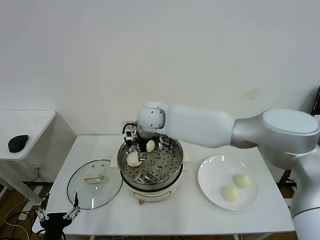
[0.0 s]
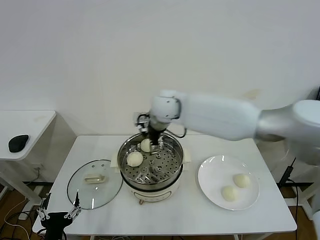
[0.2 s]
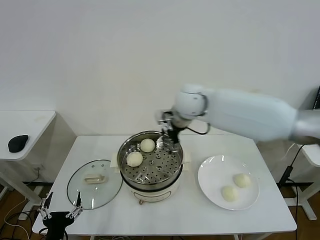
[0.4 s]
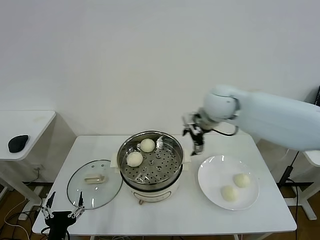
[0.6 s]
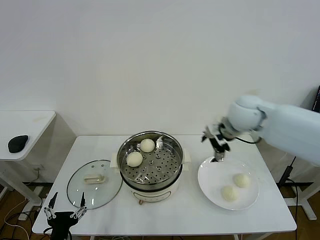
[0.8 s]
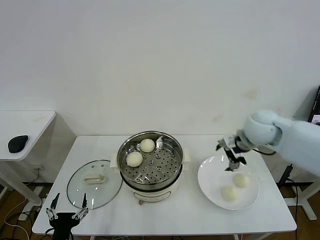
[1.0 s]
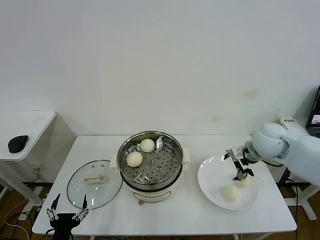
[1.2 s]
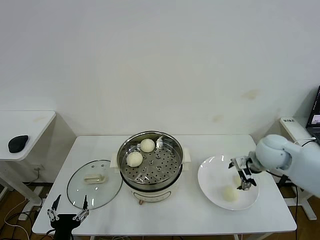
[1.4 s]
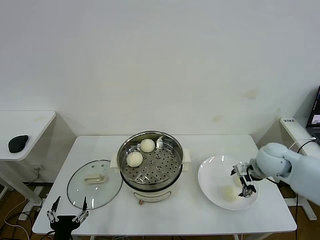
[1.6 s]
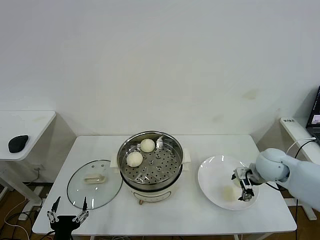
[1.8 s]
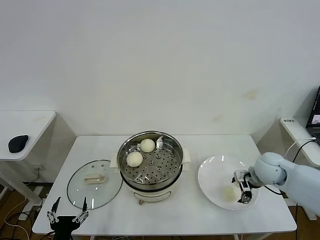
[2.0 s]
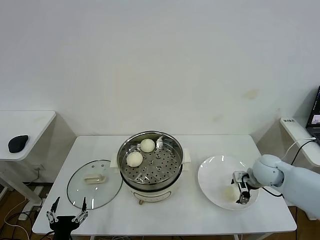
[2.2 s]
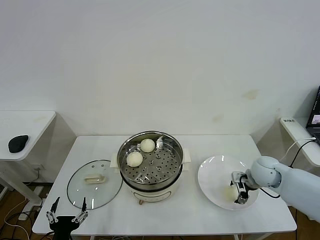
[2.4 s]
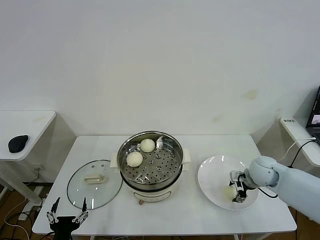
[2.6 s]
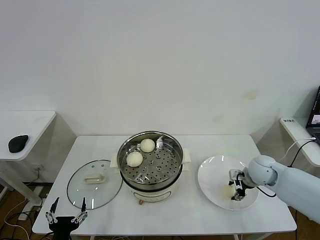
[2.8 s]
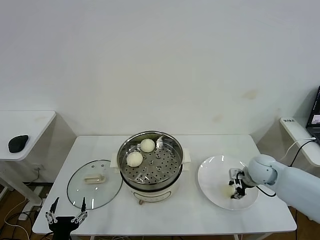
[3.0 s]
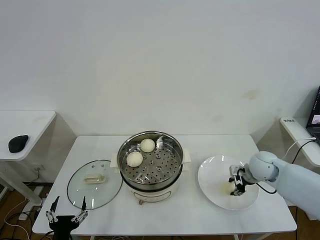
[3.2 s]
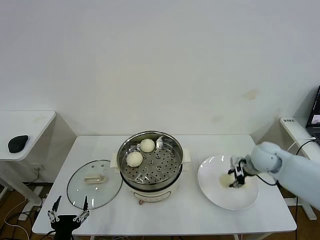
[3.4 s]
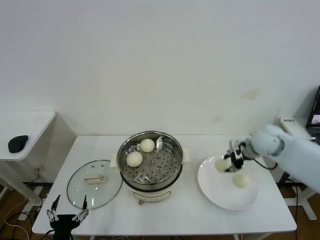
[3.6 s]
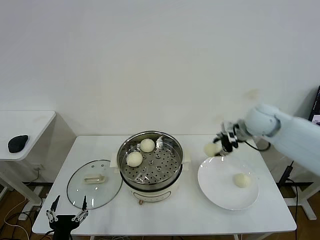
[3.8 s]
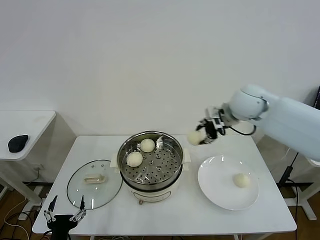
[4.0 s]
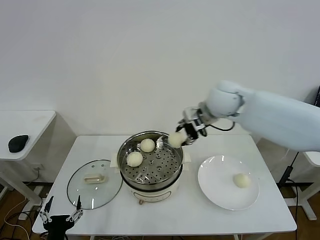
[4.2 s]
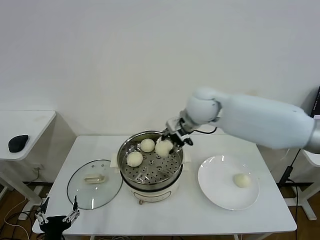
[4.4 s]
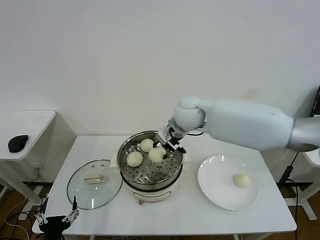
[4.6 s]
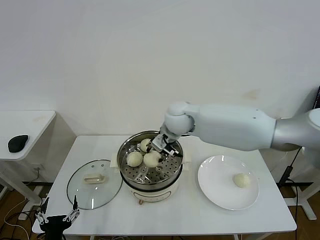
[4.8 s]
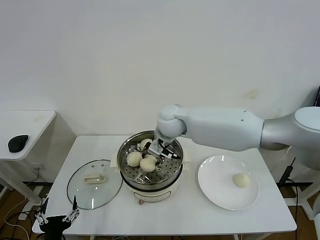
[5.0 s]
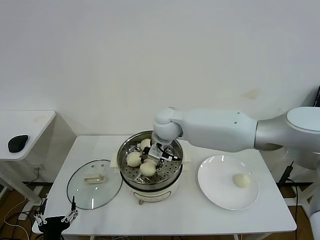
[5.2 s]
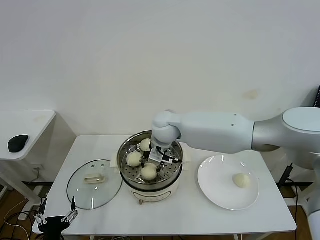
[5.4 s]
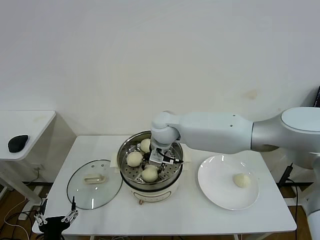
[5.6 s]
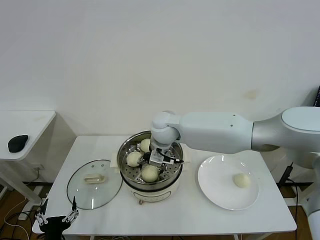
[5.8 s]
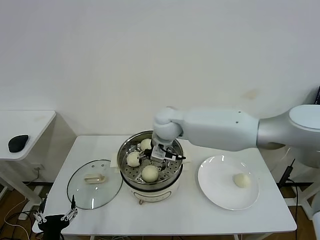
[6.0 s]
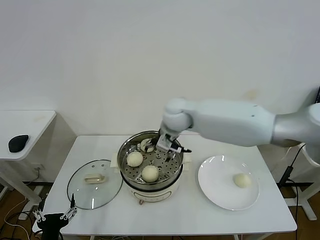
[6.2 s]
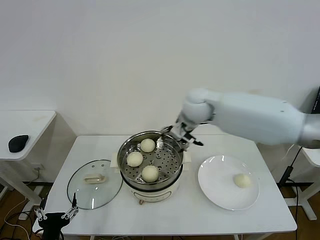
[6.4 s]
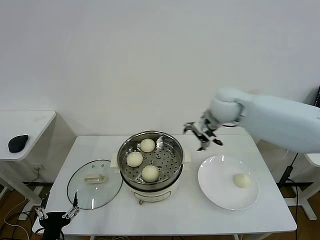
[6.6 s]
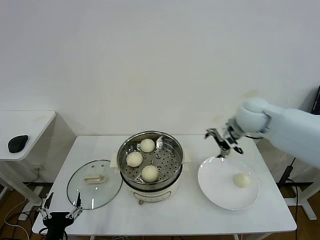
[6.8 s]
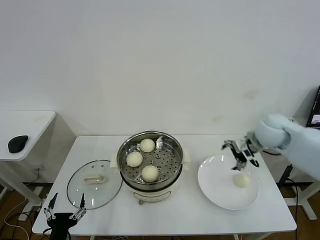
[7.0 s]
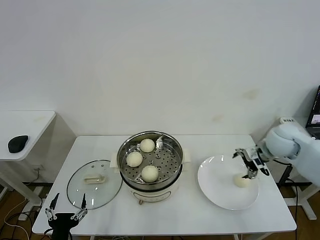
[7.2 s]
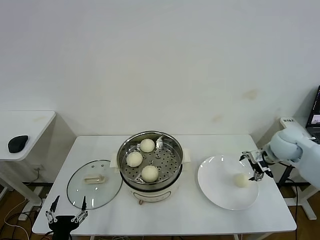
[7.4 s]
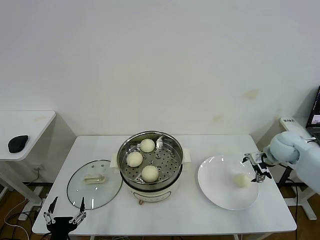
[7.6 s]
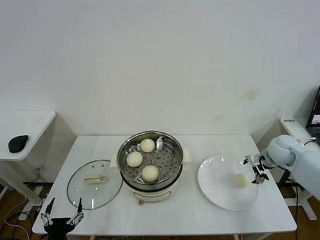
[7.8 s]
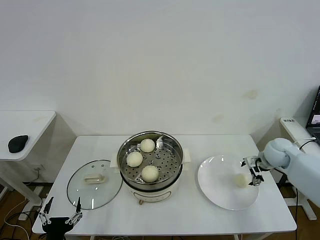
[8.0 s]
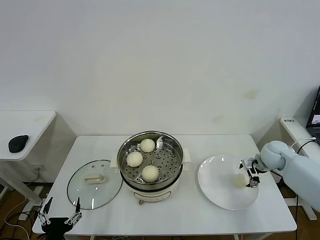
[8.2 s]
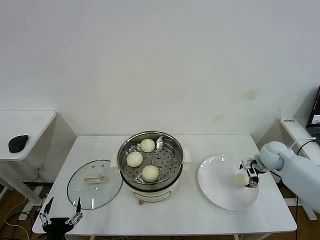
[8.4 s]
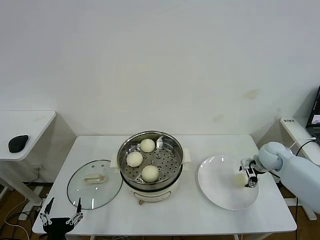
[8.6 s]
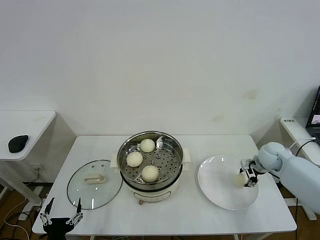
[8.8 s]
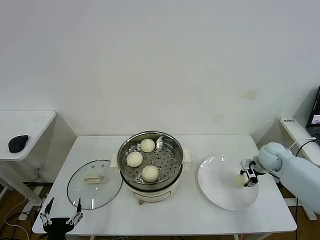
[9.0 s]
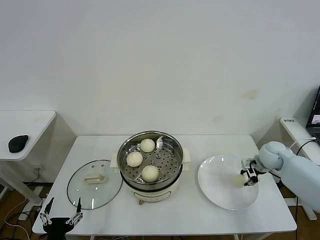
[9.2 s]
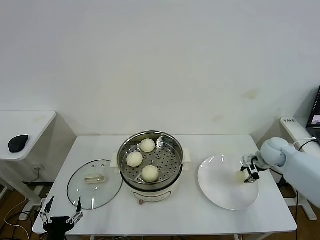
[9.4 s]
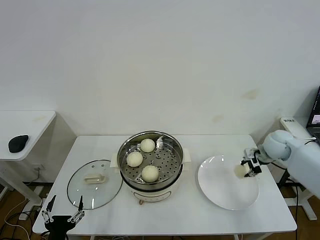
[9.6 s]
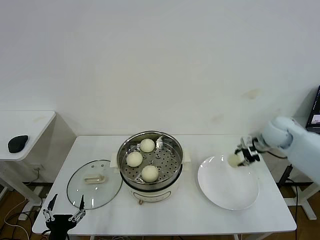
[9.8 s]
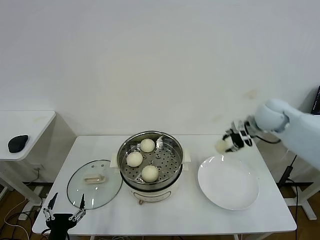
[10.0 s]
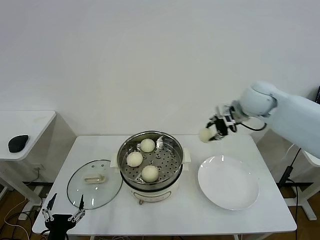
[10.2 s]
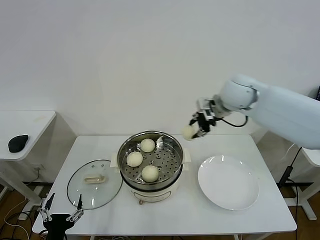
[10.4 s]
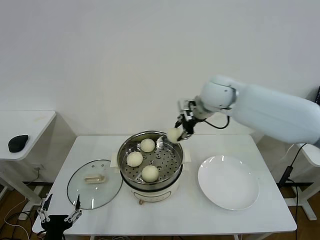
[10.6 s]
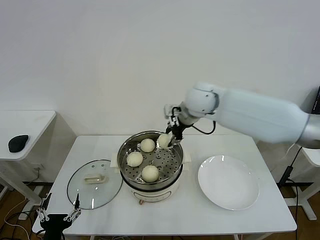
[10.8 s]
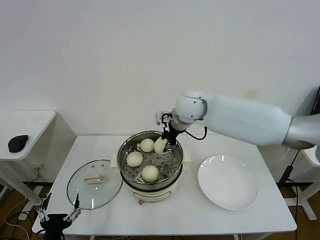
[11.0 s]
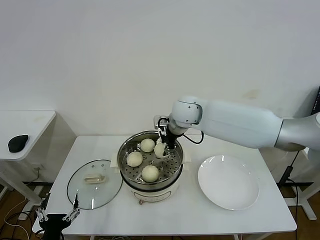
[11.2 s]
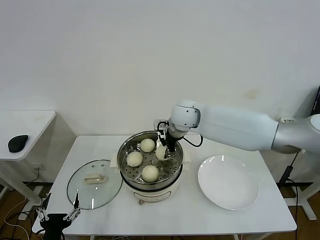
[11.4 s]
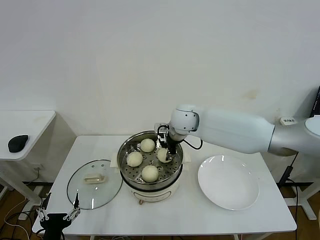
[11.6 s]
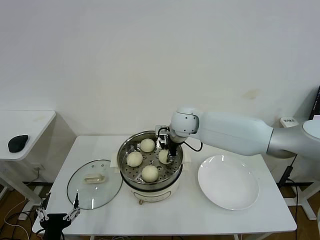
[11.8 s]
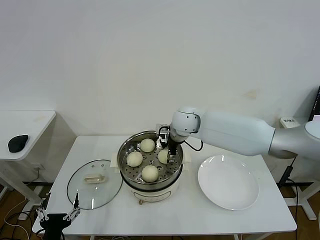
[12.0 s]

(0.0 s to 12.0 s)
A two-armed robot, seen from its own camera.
Step, 0.0 s - 3.0 s: Grasp the baozi in the plate with right gripper.
Step, 3.2 s - 5.8 s: Place the baozi on the steamer with right gripper.
Step, 6.0 s - 9.0 s: Grasp the baozi in the plate with right gripper.
0.0 s - 1.6 s: The right gripper heads to the right, covering roughly 35 cm.
1.6 s - 3.0 s: The right gripper heads downward, covering some 5 cm, and closes.
3.0 s - 4.4 s: The right gripper is displaced to the left and upward by about 30 cm.
4.4 s - 6.0 s: The right gripper is displaced to the left and downward by roughly 10 cm, and opens.
6.0 s - 7.6 s: The right gripper travels to the right by roughly 40 cm.
7.6 s - 9.0 s: The right gripper is displaced downward by roughly 5 cm, and closes.
9.0 s - 10.4 s: The right gripper goes approximately 30 cm upward and to the left.
10.4 s - 12.0 s: The right gripper shifts approximately 15 cm to the left and downward, and opens.

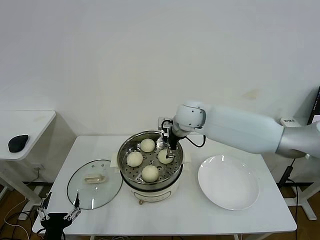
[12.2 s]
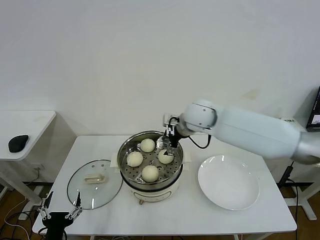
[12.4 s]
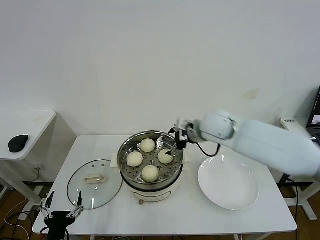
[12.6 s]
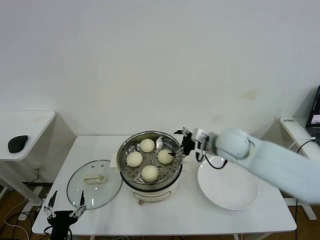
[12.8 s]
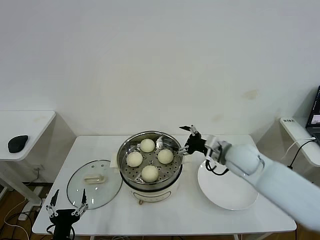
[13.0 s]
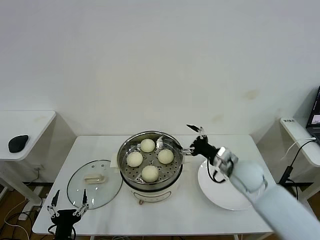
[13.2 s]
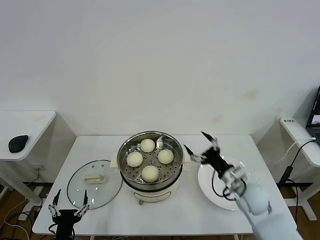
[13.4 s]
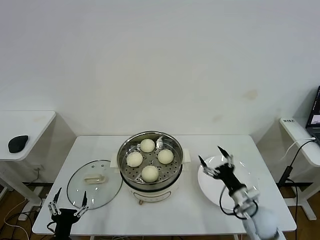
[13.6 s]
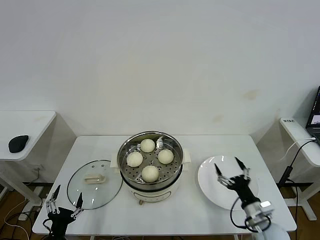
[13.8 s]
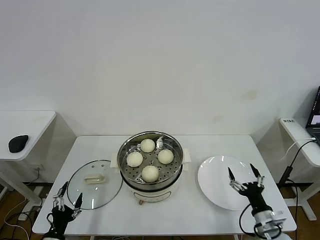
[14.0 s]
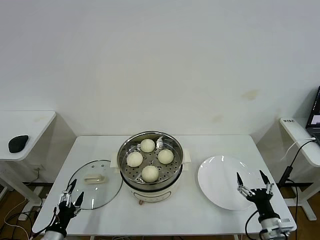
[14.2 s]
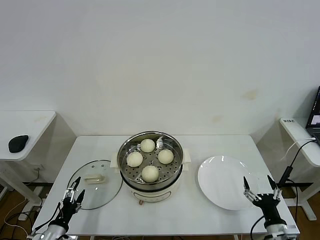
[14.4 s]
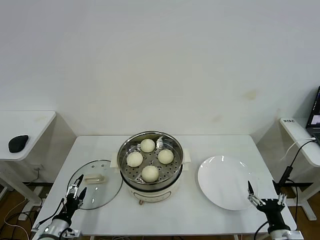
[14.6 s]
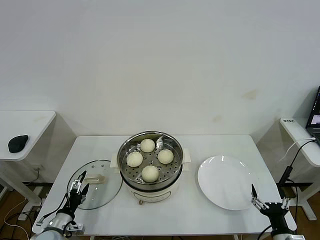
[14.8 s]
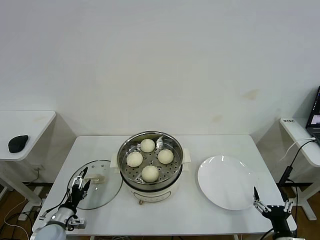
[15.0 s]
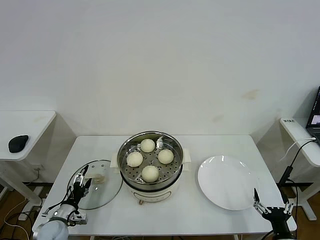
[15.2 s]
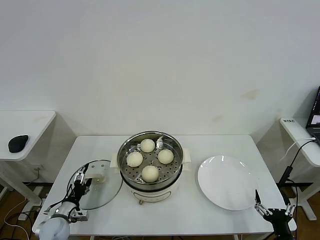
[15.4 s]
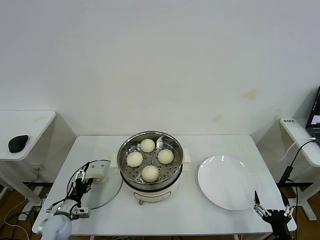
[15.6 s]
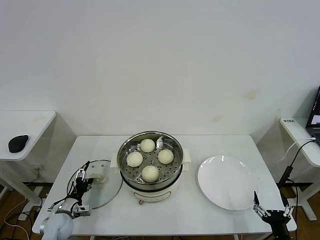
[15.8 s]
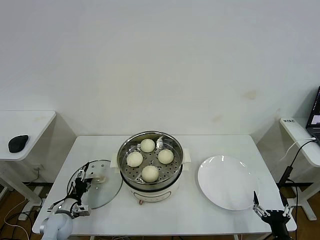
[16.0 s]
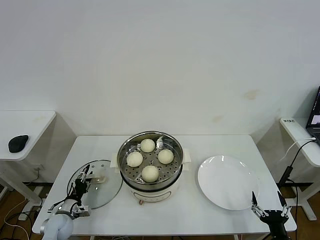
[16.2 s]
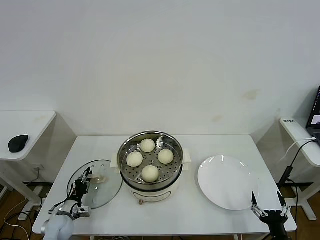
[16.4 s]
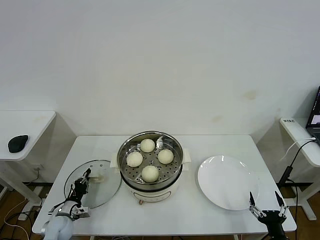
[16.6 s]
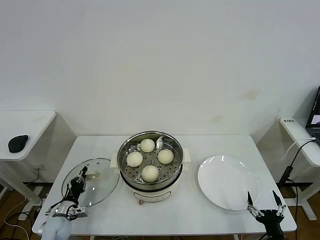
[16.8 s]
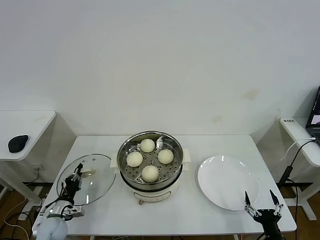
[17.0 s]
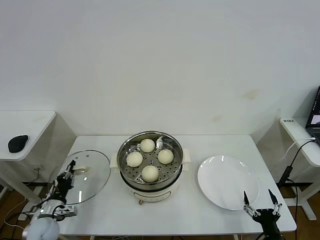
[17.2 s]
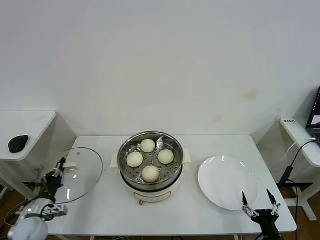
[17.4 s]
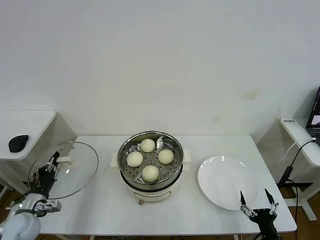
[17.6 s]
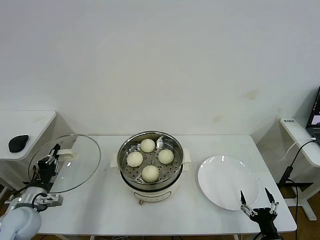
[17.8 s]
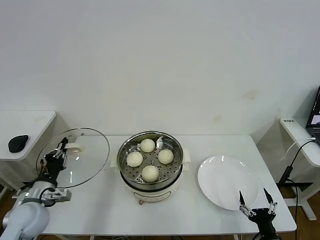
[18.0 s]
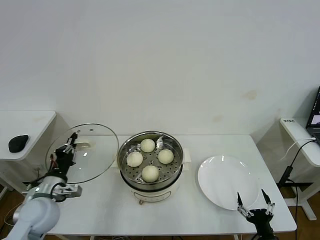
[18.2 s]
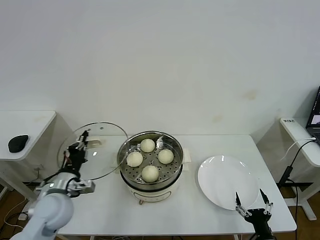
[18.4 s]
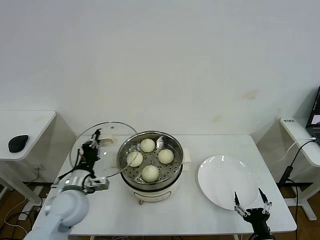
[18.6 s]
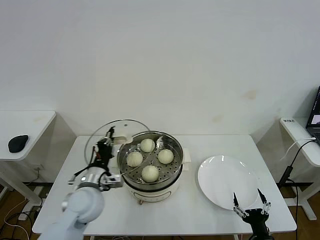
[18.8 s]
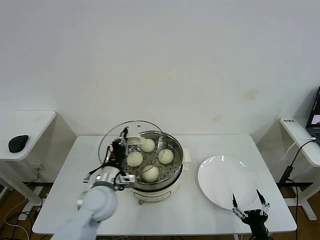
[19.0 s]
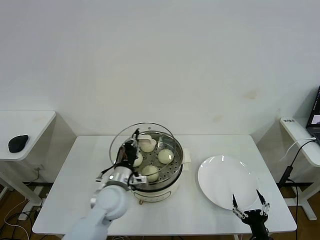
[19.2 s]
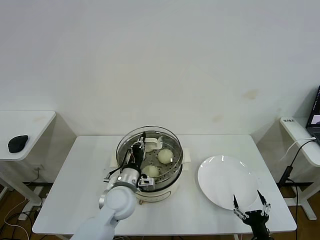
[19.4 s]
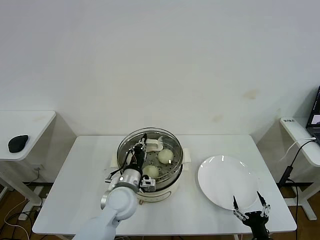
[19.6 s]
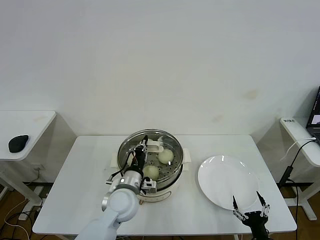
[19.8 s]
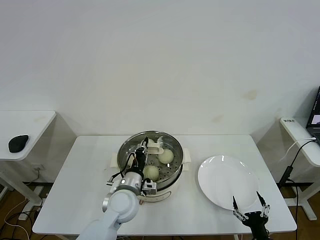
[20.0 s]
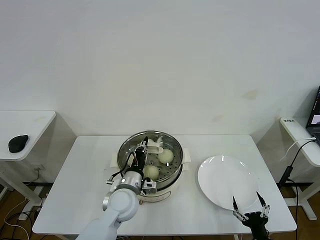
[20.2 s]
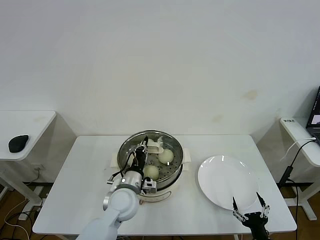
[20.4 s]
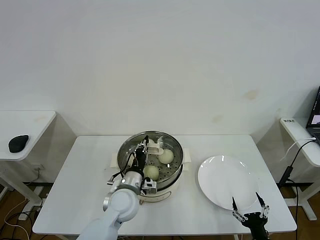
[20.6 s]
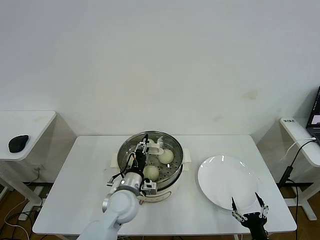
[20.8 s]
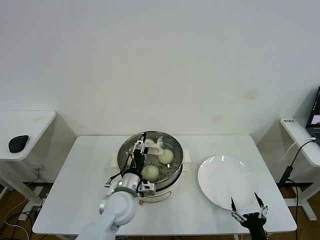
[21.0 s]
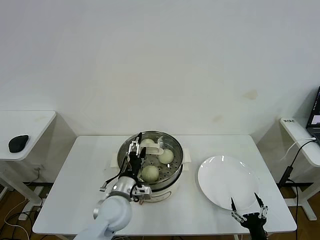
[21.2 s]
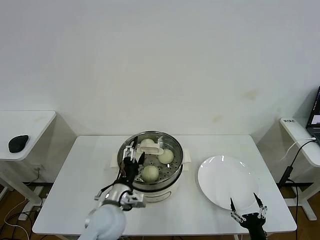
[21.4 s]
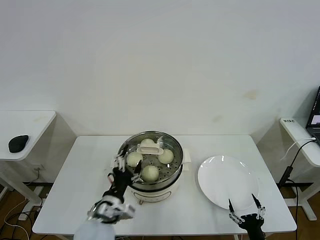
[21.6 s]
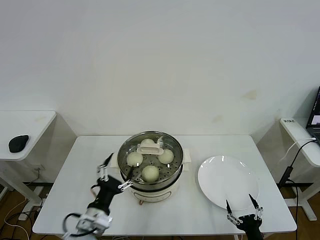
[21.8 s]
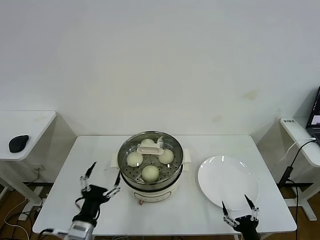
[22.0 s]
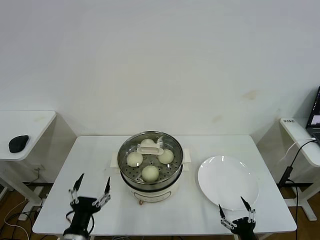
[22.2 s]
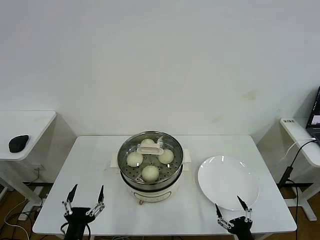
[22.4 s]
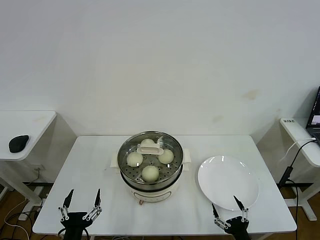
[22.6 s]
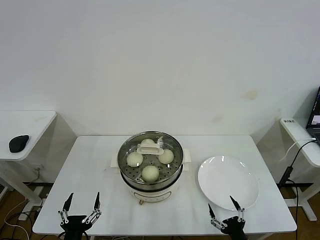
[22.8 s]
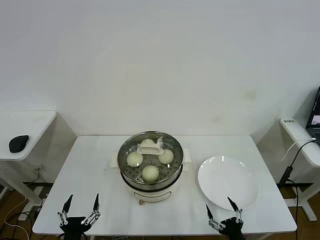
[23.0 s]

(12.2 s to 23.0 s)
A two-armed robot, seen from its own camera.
Step, 12.2 s - 16.6 s: Grasp the pot lid with left gripper.
Step, 17.0 s - 21.0 s: Place the pot lid on the steamer with left gripper.
12.2 s - 13.8 s: The right gripper heads backward, downward and to the right, covering roughly 40 cm.
13.8 s - 15.2 s: The left gripper heads forward, covering some 15 cm. The right gripper shifts about 10 cm backward.
15.2 s - 16.8 s: The left gripper closes up.
16.8 s - 18.4 s: The left gripper is displaced upward by about 20 cm.
18.4 s - 20.0 s: The left gripper heads to the right, covering approximately 20 cm.
20.0 s - 21.4 s: The left gripper changes place by about 5 cm, and opens its fingers.
21.4 s - 23.0 s: The left gripper moves backward and to the left, roughly 20 cm.
